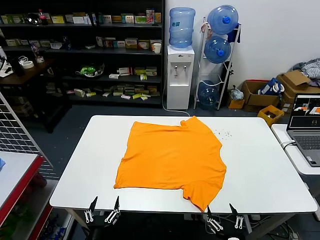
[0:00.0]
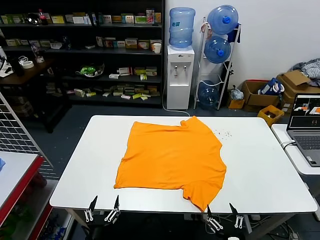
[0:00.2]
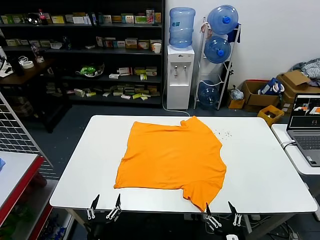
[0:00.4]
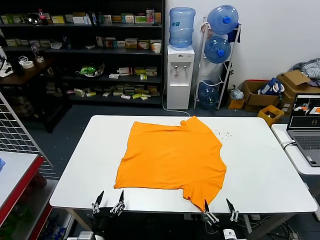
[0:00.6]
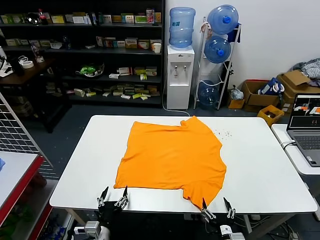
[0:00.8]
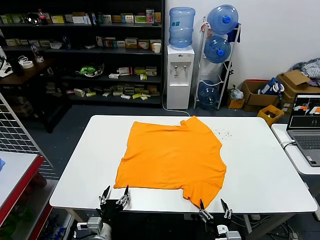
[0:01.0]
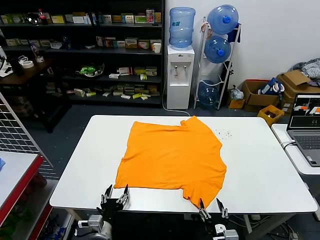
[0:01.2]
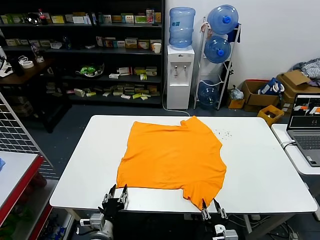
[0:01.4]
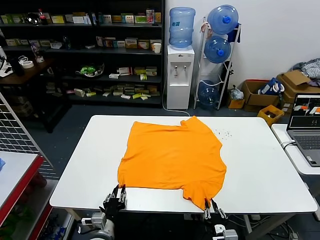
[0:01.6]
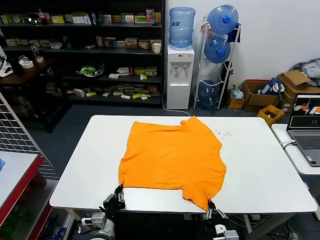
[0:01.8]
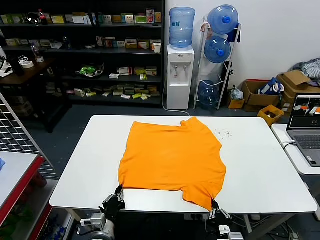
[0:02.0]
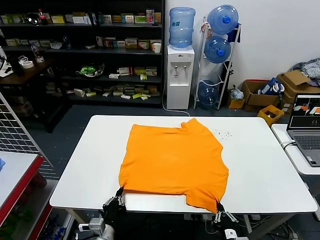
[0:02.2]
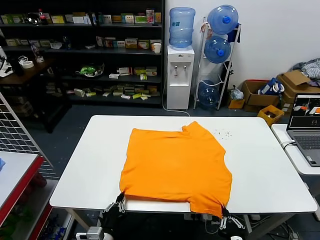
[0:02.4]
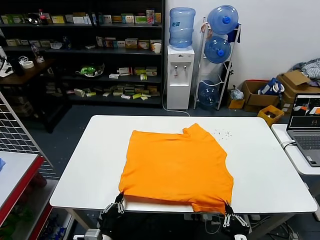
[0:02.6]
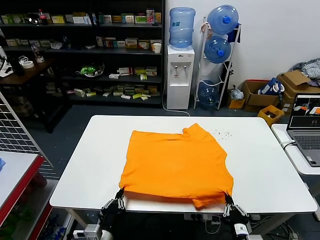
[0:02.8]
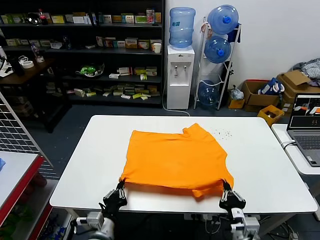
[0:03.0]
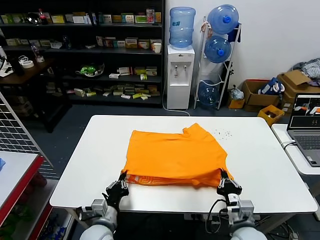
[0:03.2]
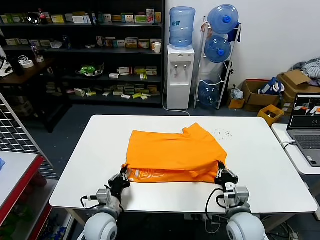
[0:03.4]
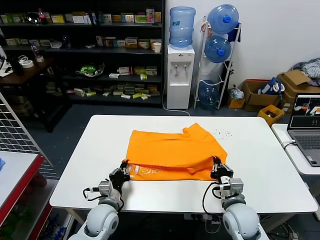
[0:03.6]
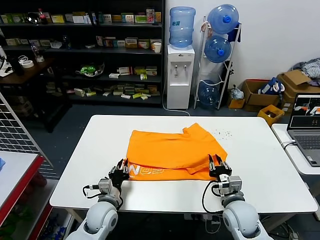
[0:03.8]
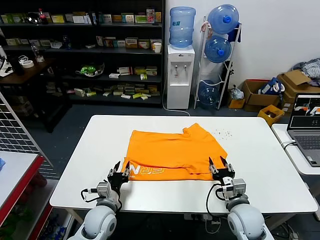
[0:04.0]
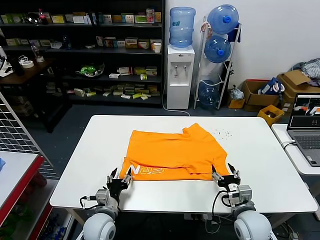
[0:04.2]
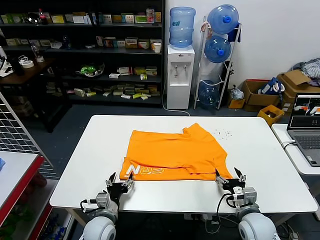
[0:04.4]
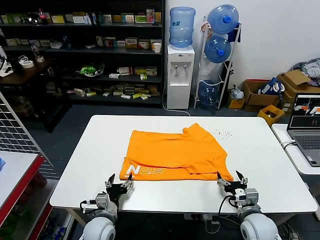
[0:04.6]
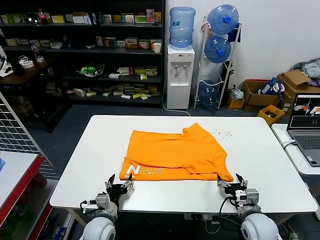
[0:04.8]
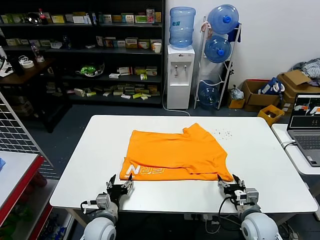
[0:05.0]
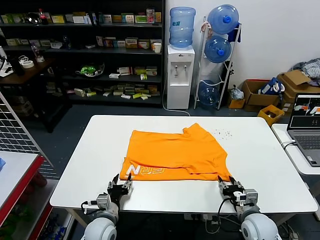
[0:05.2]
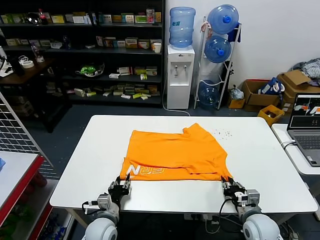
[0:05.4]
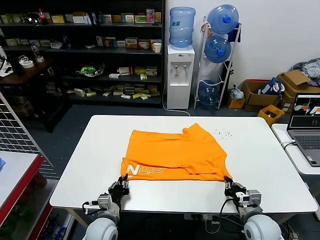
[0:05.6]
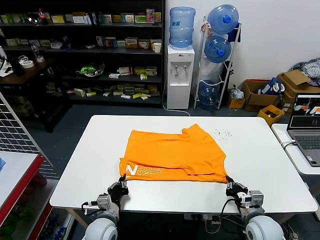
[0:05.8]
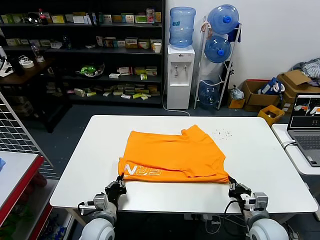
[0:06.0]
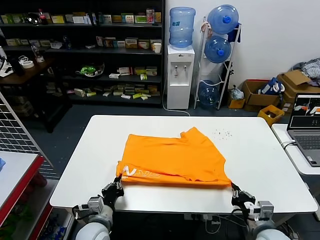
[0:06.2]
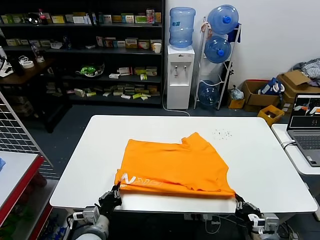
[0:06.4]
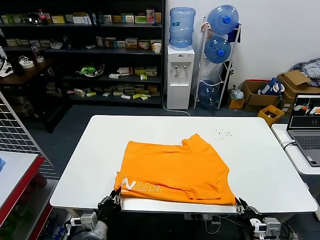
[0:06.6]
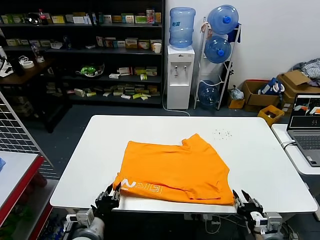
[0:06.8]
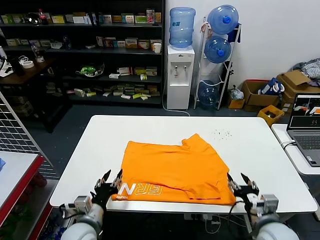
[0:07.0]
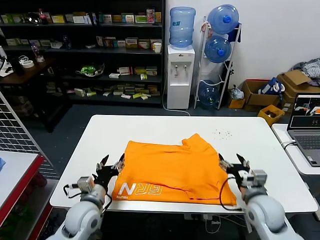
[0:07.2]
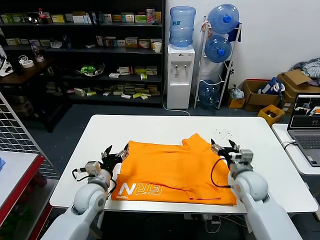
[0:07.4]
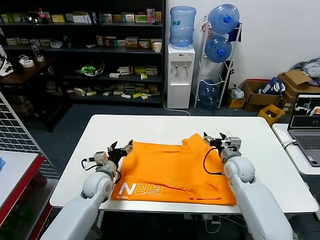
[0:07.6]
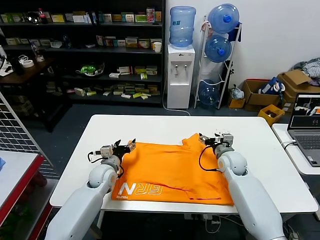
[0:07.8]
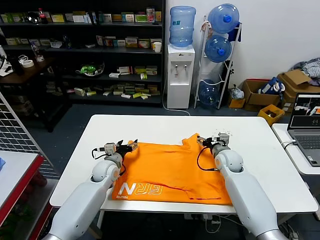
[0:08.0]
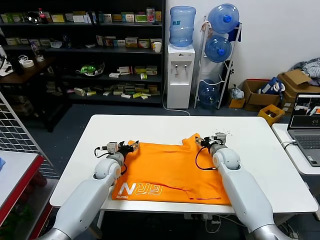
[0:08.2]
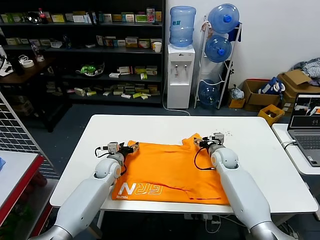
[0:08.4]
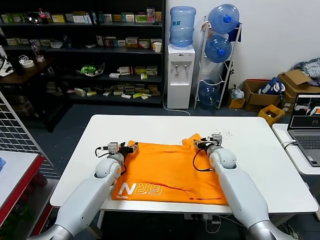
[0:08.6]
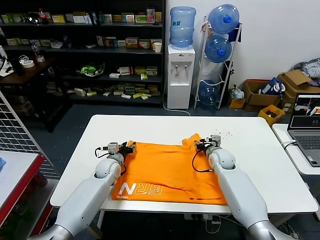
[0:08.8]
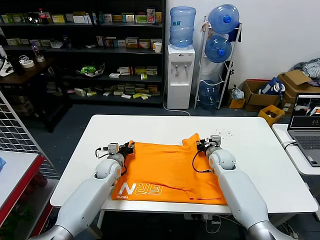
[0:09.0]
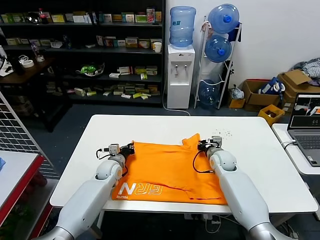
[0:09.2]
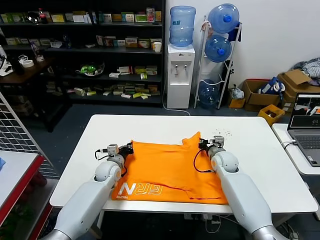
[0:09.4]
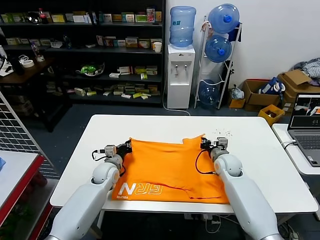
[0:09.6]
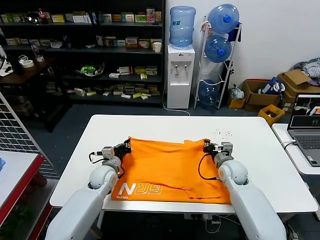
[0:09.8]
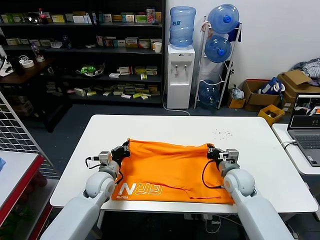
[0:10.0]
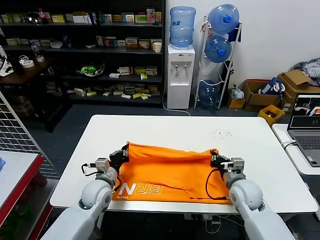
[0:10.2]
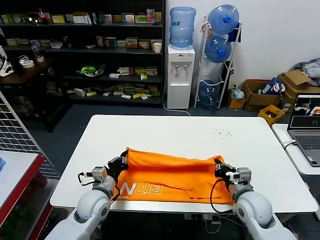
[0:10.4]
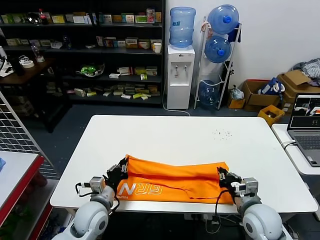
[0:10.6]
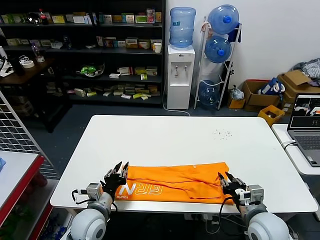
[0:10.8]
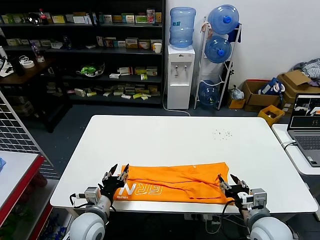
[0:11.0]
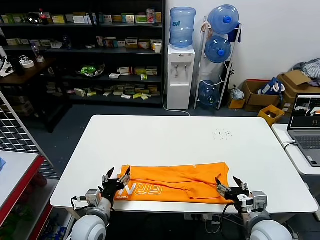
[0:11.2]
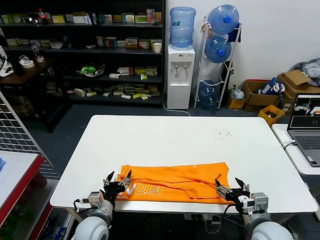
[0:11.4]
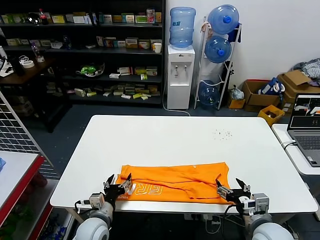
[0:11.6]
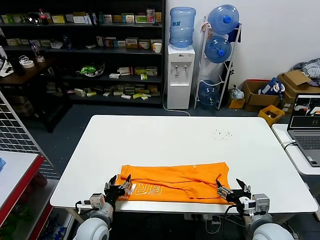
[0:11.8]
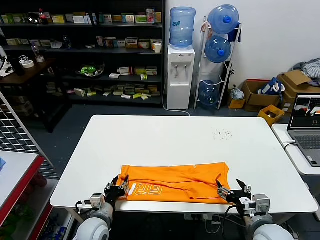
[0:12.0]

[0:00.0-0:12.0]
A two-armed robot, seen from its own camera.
Task of the whole recording: fold and organize the clothes.
Step, 0:00.0 to 0:02.0: use both grippers simultaneously to clamp the lower edge of the clothing fabric.
Step, 0:02.2 to 0:04.0: use both grippers to drag the lower edge of the fabric forward and fold it over the upper edge.
Step, 0:04.2 to 0:06.8: Drag the clothes downward with both gripper.
Step, 0:07.0 to 0:09.4: use both grippers simultaneously to clamp the upper edge of the clothing fabric.
Step, 0:09.6 to 0:11.2: use both grippers to drag the upper edge of the fabric backward and fold it over the lower edge.
0:01.6 to 0:03.0: Both grippers travel together upward, roughly 5 cm. The left gripper closes up.
0:03.0 to 0:04.4: The right gripper heads forward and to the right, covering about 10 cm, and opens up. Meanwhile the left gripper is displaced forward by approximately 5 cm, and opens its fingers.
0:04.4 to 0:06.0: The right gripper closes; the left gripper closes up.
0:06.0 to 0:07.6: The right gripper shifts roughly 20 cm forward, and opens its fingers; the left gripper is displaced forward by some 15 cm, and opens up.
0:07.6 to 0:09.0: The right gripper travels forward by approximately 5 cm, and closes up. Meanwhile the left gripper heads forward, covering about 10 cm, and closes.
0:09.0 to 0:10.4: The two grippers go roughly 20 cm backward. The left gripper closes up.
0:10.4 to 0:12.0: The left gripper heads downward and backward, covering roughly 10 cm, and opens its fingers. Meanwhile the right gripper shifts about 10 cm backward, and opens up.

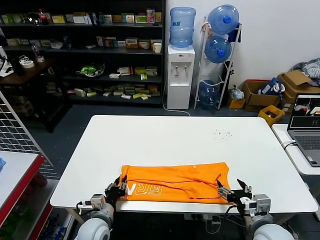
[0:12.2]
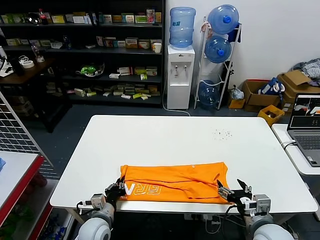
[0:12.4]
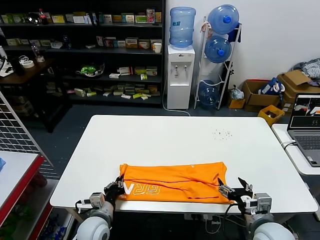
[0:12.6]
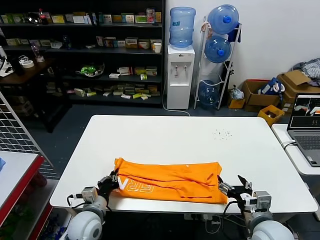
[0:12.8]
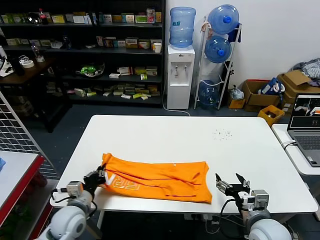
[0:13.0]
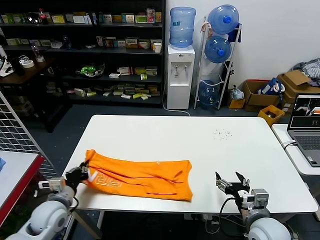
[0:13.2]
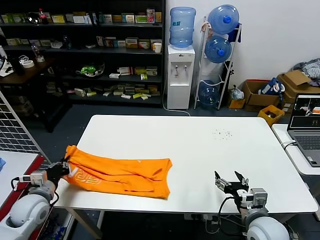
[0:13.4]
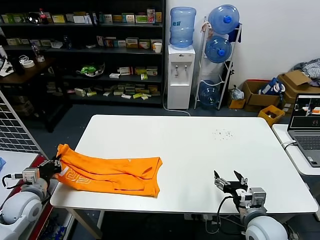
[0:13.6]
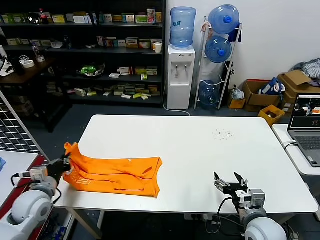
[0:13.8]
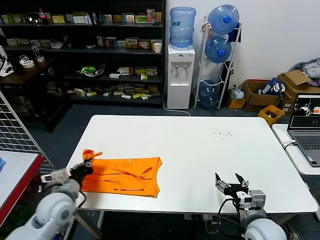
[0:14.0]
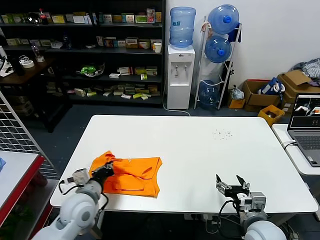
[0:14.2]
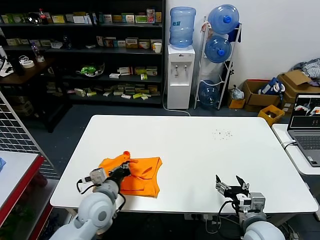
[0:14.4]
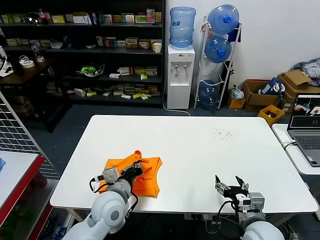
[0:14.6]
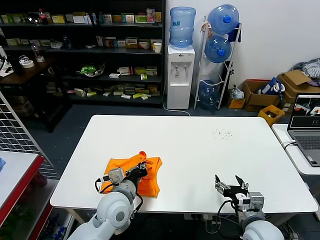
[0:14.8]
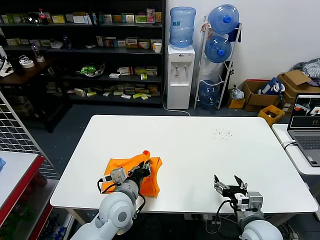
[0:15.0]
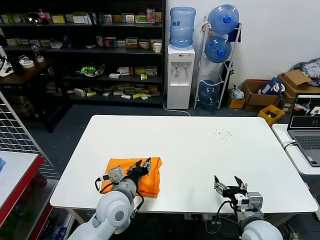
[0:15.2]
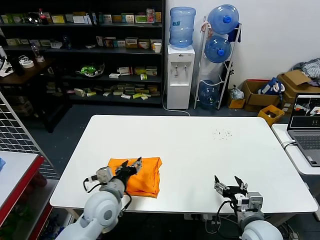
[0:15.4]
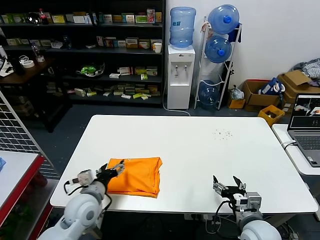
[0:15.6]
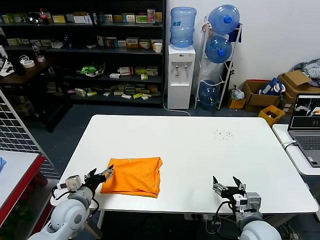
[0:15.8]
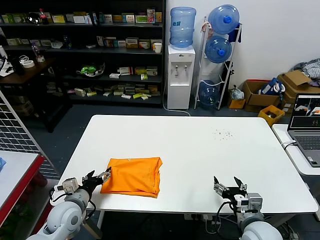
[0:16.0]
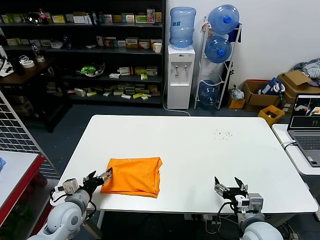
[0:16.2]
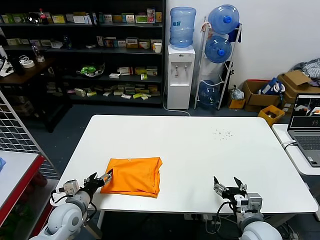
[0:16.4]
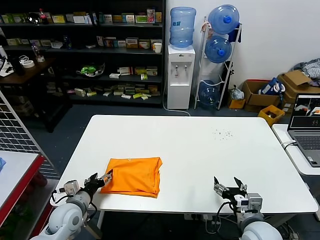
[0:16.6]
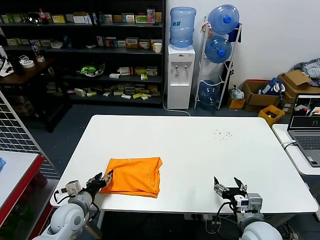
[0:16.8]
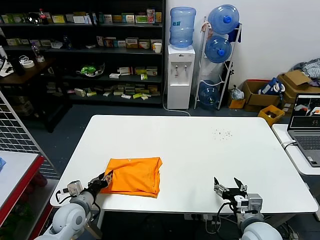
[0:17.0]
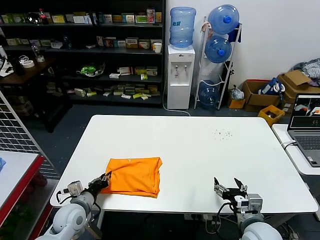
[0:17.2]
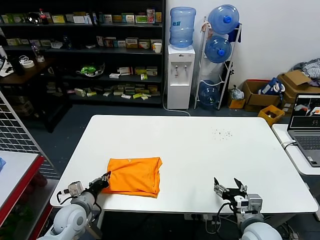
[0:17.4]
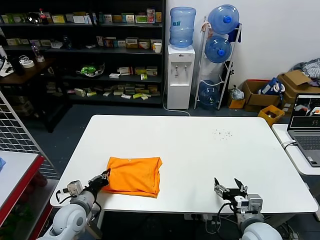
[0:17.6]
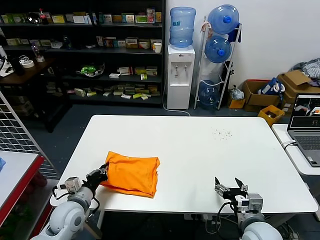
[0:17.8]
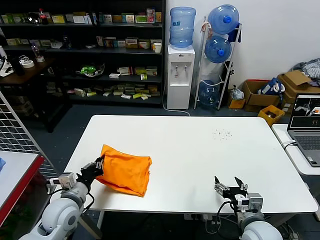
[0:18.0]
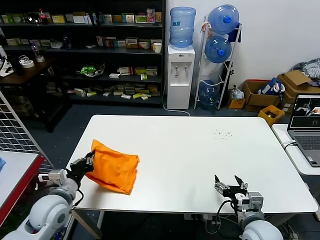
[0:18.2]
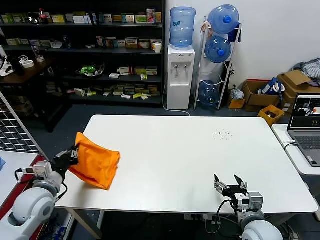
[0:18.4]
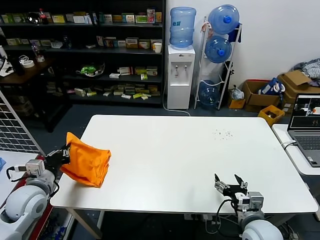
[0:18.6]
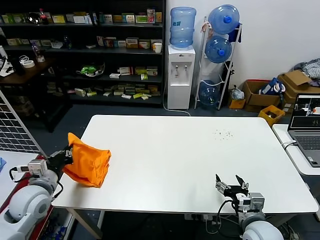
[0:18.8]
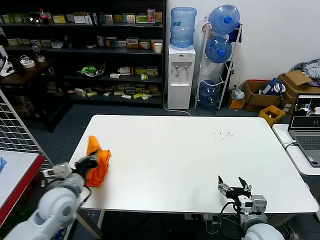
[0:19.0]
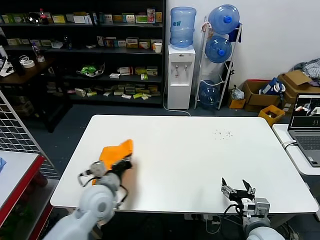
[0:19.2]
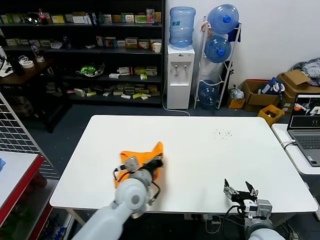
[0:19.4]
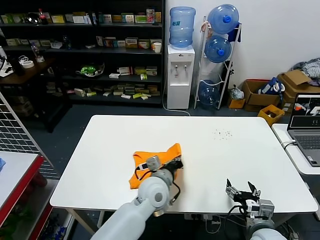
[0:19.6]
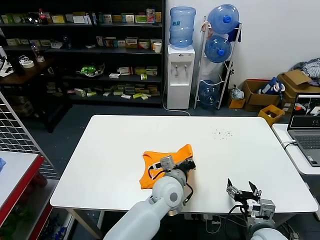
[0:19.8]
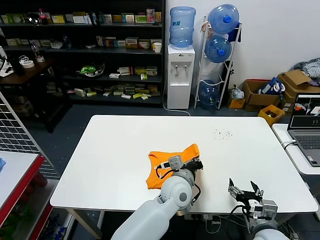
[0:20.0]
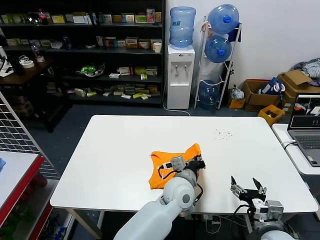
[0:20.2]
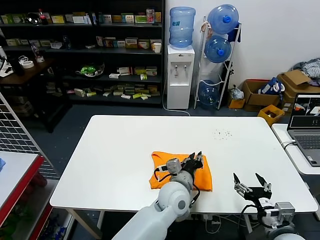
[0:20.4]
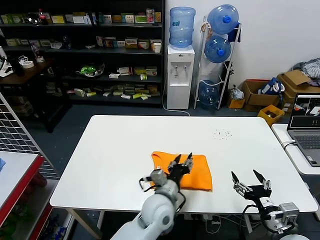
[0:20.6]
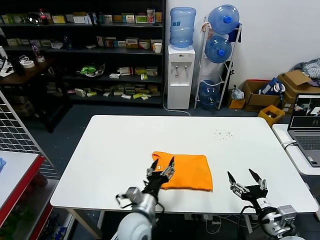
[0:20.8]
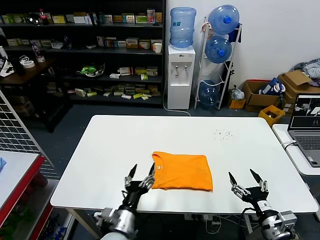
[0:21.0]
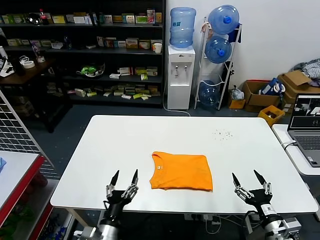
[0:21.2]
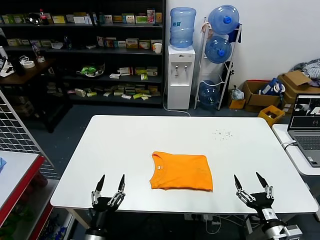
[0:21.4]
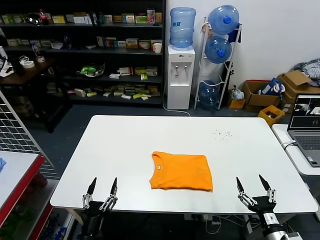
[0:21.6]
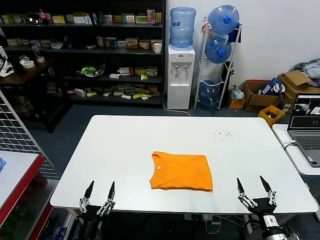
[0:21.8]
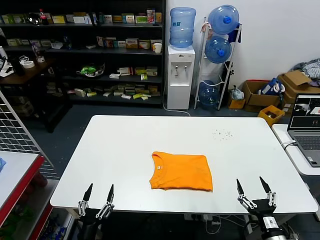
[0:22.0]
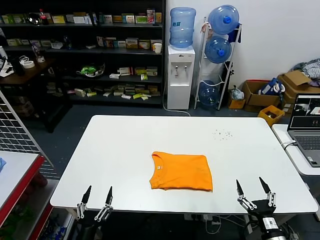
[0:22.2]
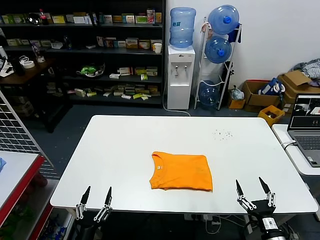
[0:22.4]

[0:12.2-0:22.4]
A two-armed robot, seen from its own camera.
Task of the whole recording: fold and organize the clothes.
Step, 0:12.6 to 0:15.2: use the left gripper to drag the left edge of the fabric to the left and folds it over the right edge.
Step, 0:15.4 to 0:20.4: Flip the folded clothes over with left gripper.
0:12.2 to 0:13.6: The left gripper is displaced to the left and upward by about 25 cm, and closes its fingers.
0:13.6 to 0:15.2: The left gripper travels to the right by about 30 cm, and opens up.
0:15.2 to 0:16.6: The left gripper heads to the left and downward, covering some 20 cm, and opens its fingers.
0:16.6 to 0:18.0: The left gripper goes approximately 5 cm upward, and closes its fingers.
0:18.0 to 0:19.4: The left gripper heads to the right, covering approximately 20 cm.
0:19.4 to 0:21.0: The left gripper is displaced backward and downward by approximately 15 cm, moves about 15 cm to the right and comes back, and opens, while the right gripper shifts some 5 cm to the right.
0:21.0 to 0:22.4: The left gripper is displaced to the left, backward and downward by approximately 20 cm. The right gripper goes some 5 cm downward.
